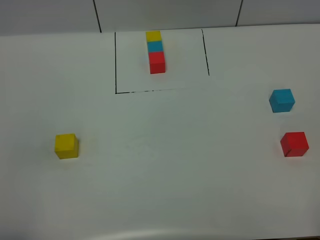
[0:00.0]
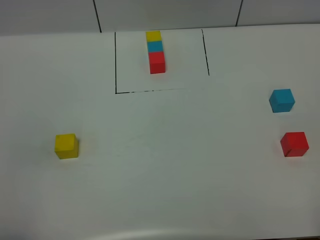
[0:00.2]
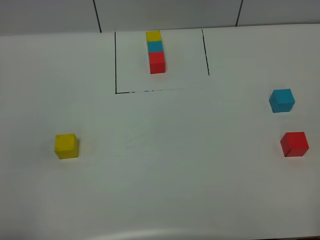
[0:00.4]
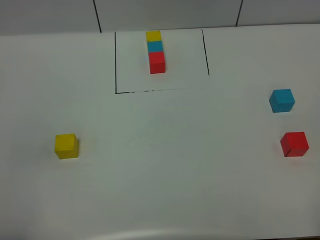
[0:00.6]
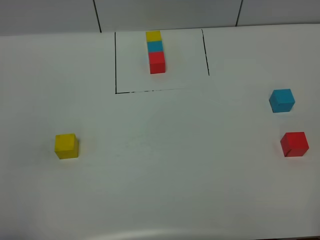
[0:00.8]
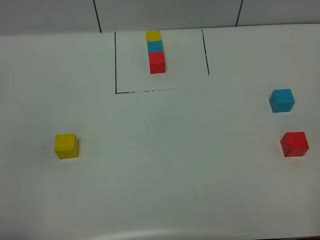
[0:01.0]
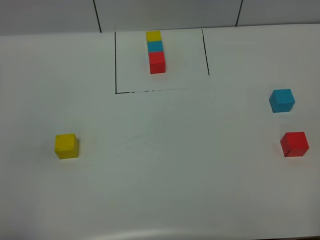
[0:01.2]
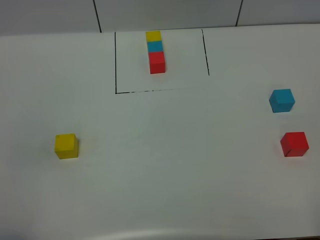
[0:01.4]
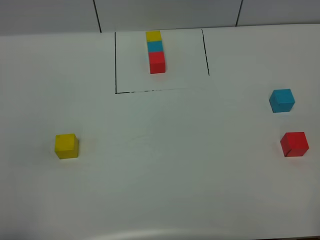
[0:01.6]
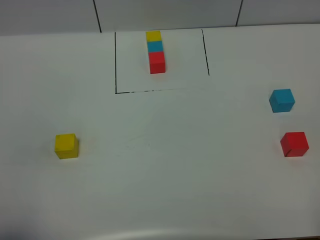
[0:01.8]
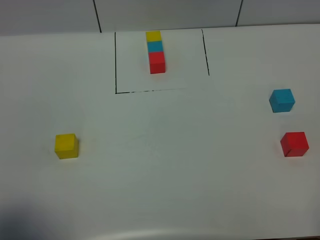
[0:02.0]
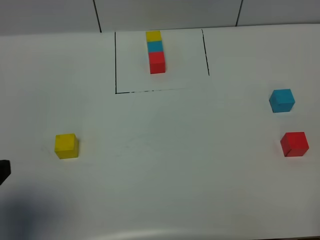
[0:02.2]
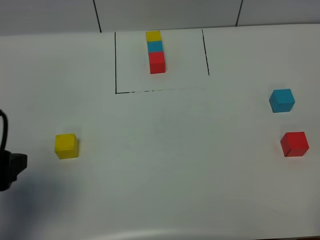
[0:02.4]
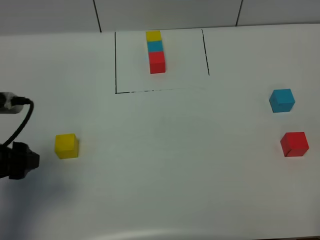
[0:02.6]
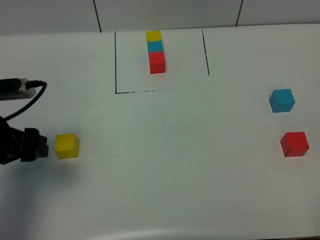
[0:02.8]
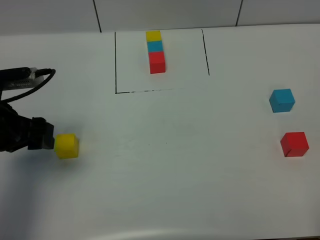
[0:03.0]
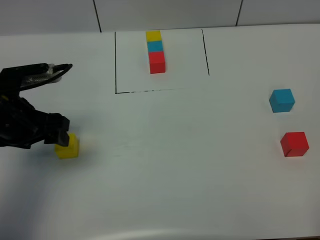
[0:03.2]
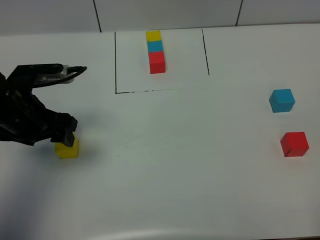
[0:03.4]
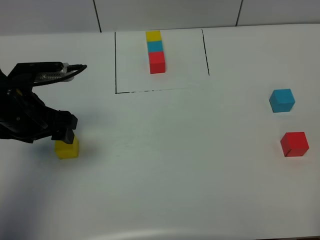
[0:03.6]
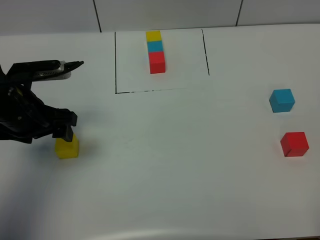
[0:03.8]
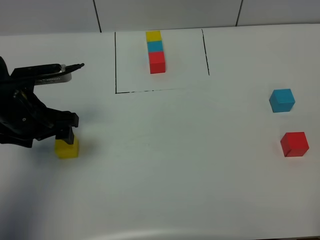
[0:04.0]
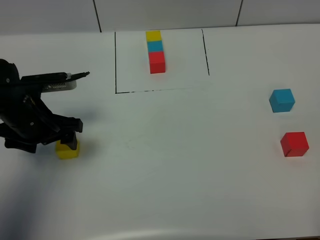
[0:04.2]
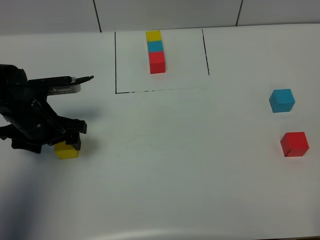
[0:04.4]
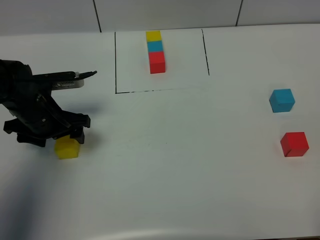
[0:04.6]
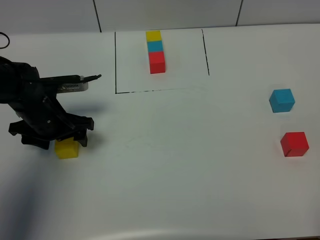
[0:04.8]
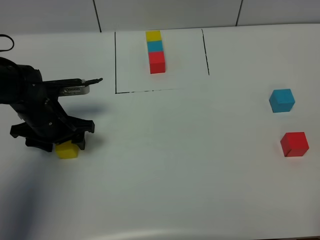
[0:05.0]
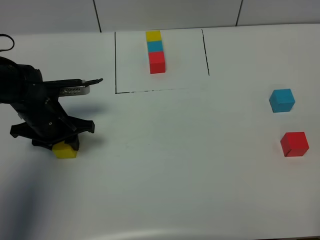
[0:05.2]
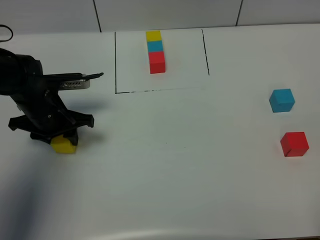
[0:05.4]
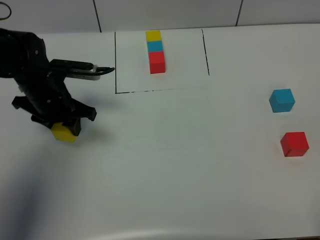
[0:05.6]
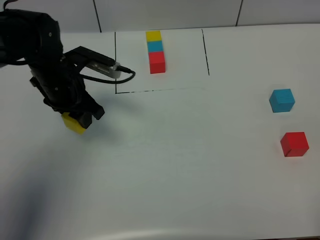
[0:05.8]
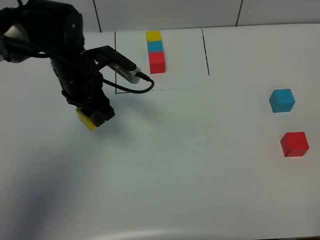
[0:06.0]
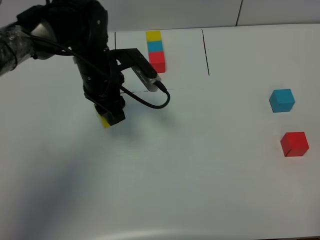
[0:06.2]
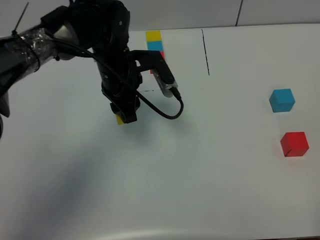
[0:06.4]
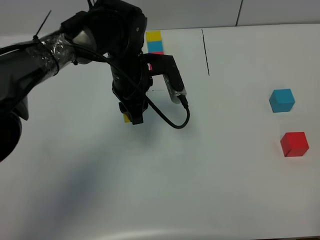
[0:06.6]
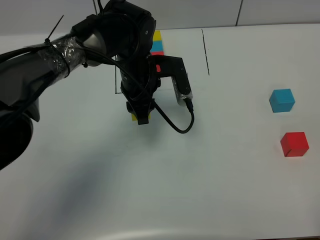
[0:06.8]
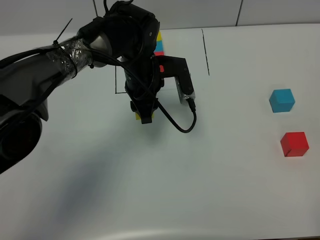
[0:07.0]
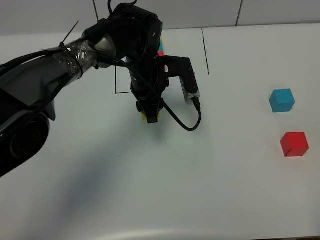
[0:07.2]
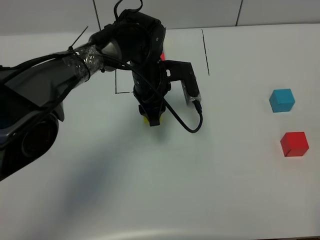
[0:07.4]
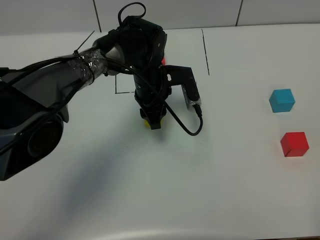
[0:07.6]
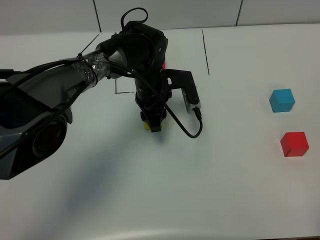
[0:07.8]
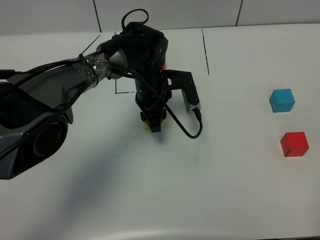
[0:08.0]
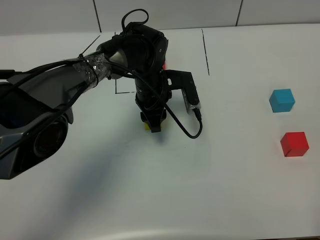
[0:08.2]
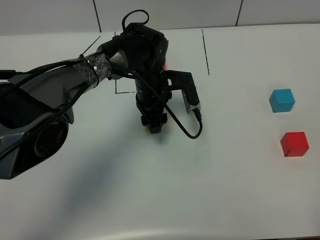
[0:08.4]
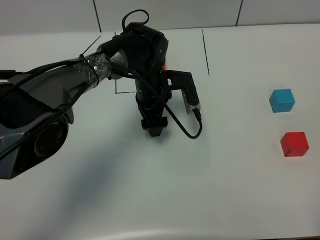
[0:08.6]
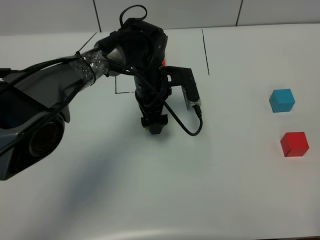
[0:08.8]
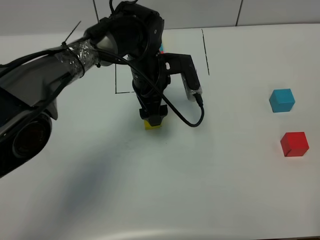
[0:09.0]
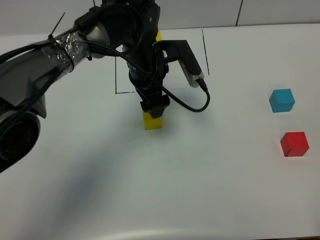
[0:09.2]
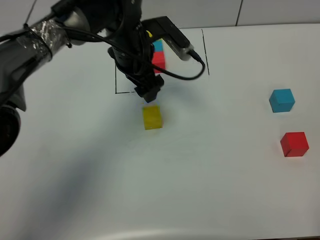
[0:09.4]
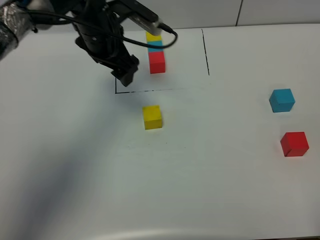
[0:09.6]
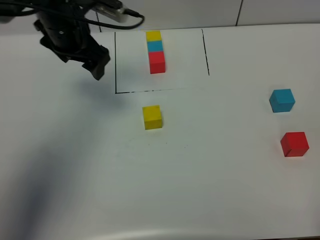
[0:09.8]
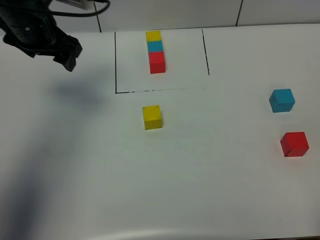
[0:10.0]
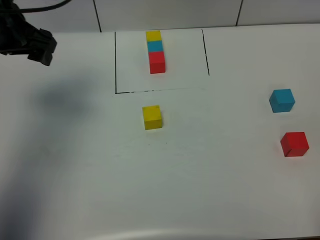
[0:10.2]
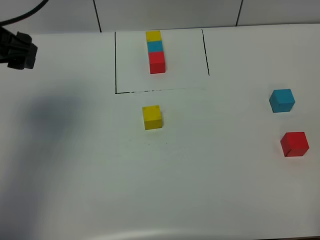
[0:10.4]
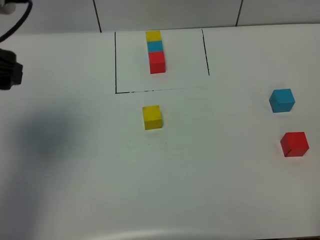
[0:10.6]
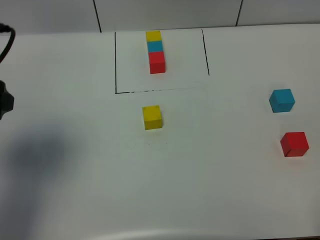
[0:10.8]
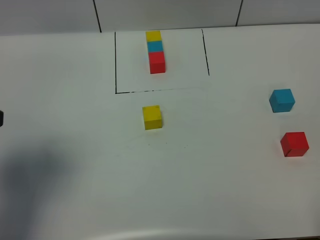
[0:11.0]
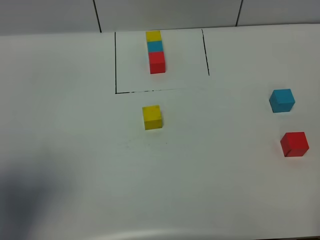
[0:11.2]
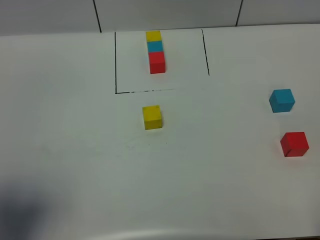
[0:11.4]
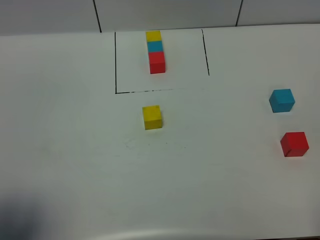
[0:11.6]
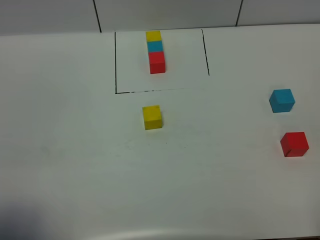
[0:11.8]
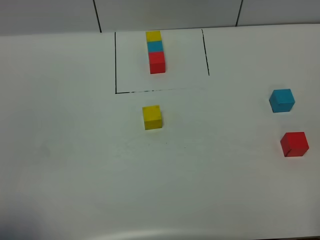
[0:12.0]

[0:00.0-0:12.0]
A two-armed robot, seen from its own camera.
Task of the whole recording: According to the building block template in front, assemble the scattered blocks together.
Step, 0:02.2 to 0:09.0: Put the yellow cube in the center of the table.
0:00.0 to 0:01.6: Both grippers stay about where they are.
0:01.6 to 0:03.0: The left gripper heads forward, covering roughly 25 cm.
0:03.0 to 0:04.4: The left gripper travels downward and forward by roughly 10 cm.
0:04.4 to 0:06.0: The left gripper heads to the right and forward, covering approximately 10 cm, and closes.
0:06.0 to 0:07.6: The left gripper heads to the right and downward, covering about 15 cm.
0:07.6 to 0:09.0: The left gripper opens its fingers.
0:09.0 to 0:10.4: The left gripper shifts about 30 cm to the left and upward.
0:10.4 to 0:12.0: The left gripper moves backward, approximately 30 cm.

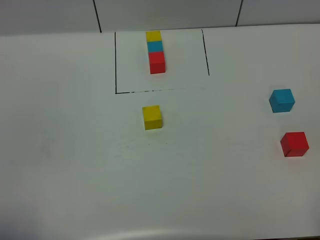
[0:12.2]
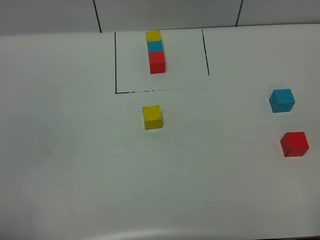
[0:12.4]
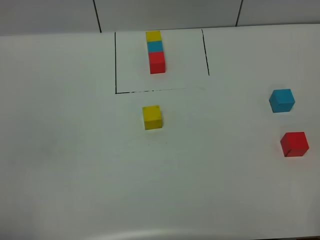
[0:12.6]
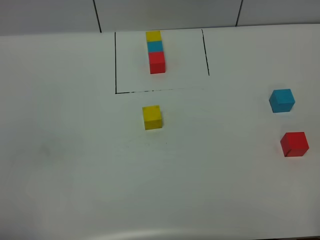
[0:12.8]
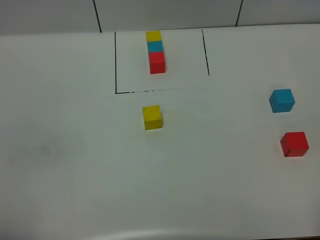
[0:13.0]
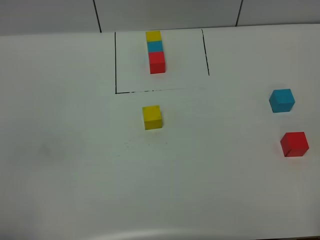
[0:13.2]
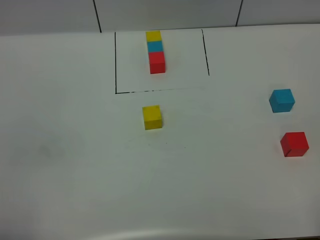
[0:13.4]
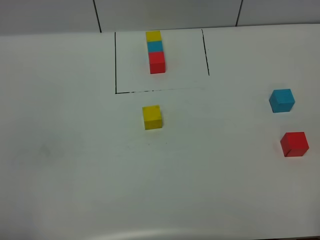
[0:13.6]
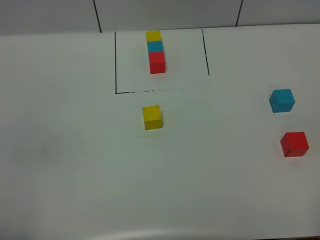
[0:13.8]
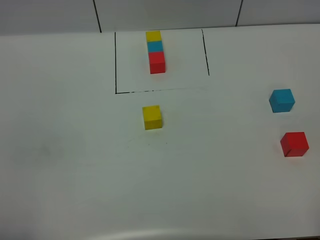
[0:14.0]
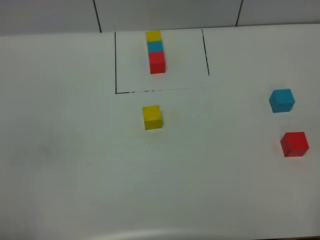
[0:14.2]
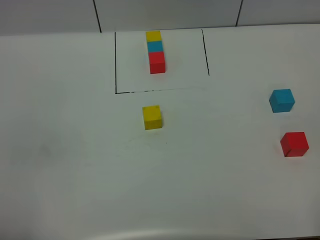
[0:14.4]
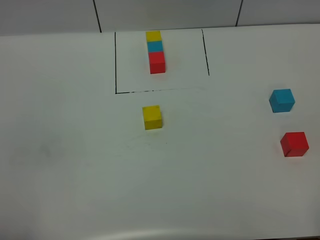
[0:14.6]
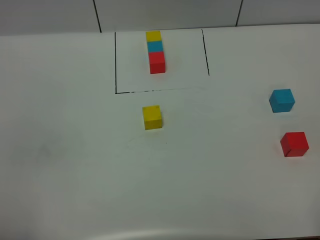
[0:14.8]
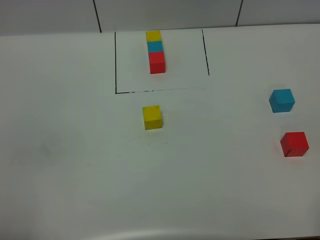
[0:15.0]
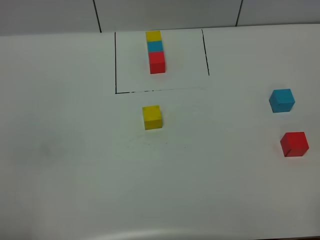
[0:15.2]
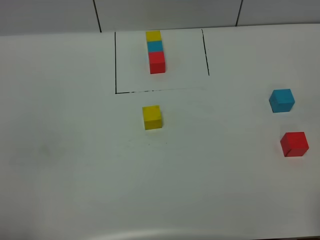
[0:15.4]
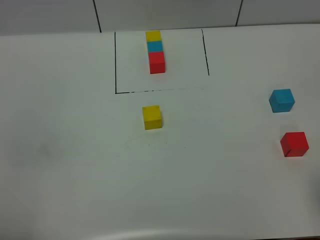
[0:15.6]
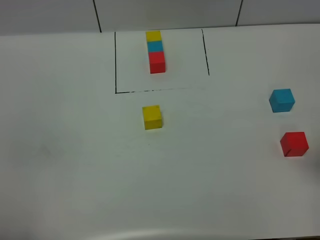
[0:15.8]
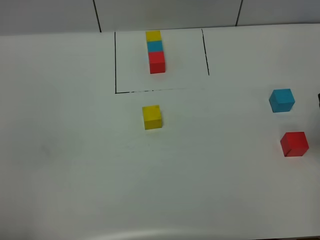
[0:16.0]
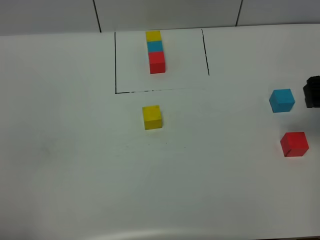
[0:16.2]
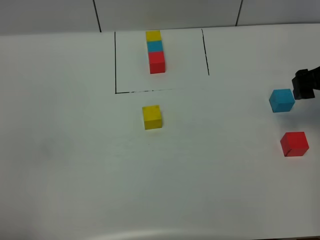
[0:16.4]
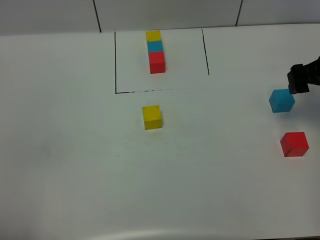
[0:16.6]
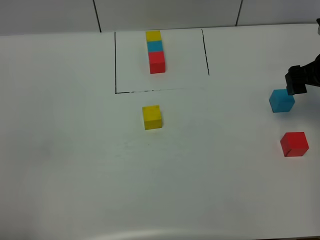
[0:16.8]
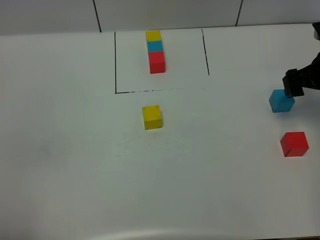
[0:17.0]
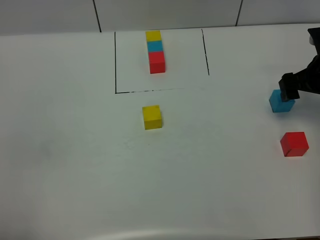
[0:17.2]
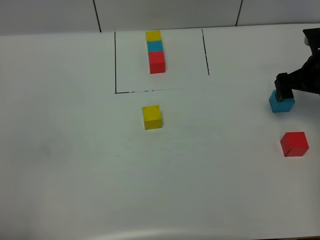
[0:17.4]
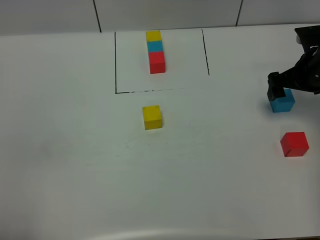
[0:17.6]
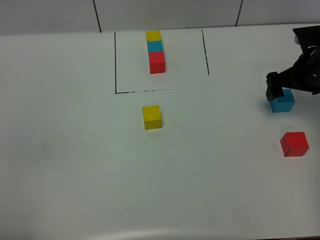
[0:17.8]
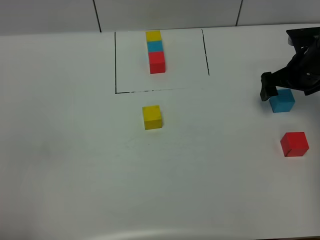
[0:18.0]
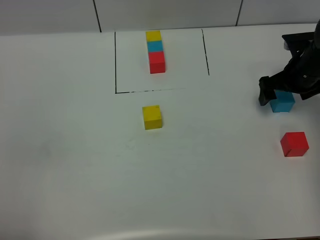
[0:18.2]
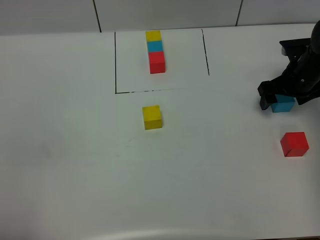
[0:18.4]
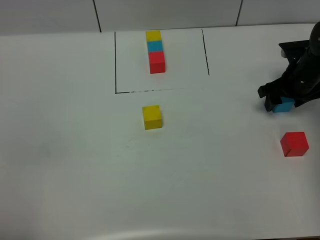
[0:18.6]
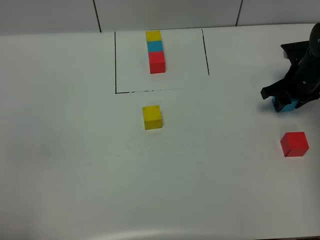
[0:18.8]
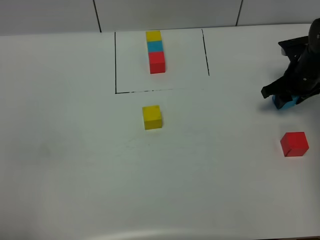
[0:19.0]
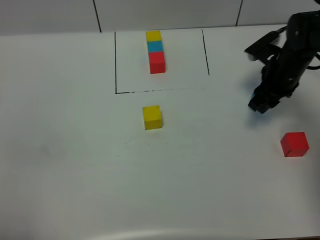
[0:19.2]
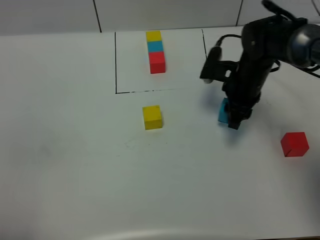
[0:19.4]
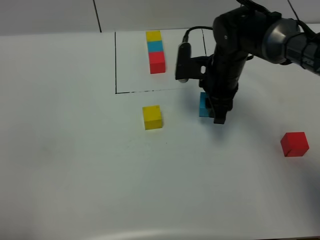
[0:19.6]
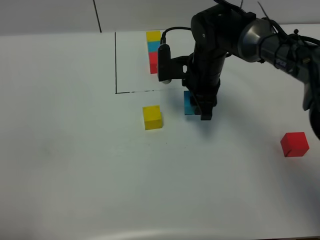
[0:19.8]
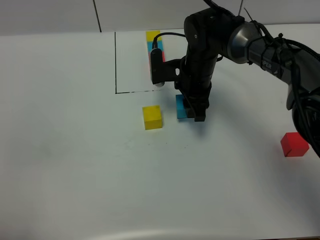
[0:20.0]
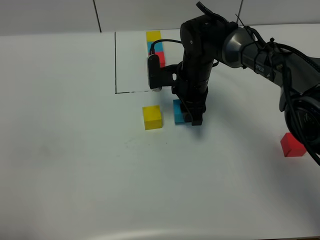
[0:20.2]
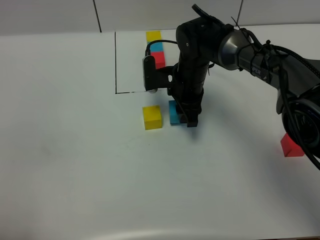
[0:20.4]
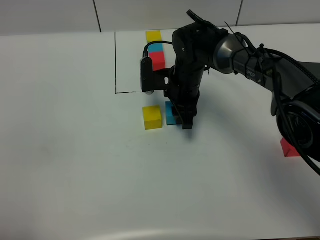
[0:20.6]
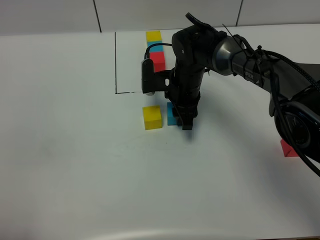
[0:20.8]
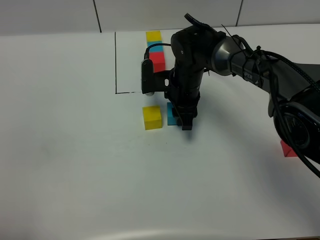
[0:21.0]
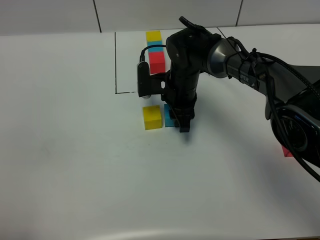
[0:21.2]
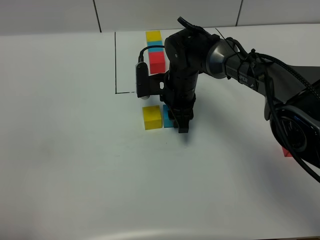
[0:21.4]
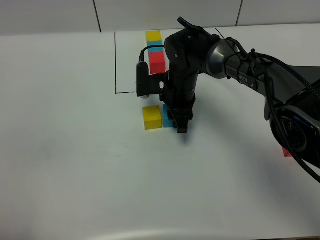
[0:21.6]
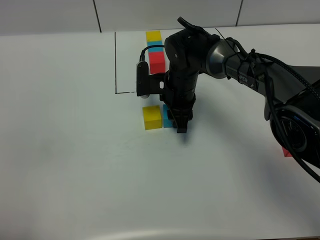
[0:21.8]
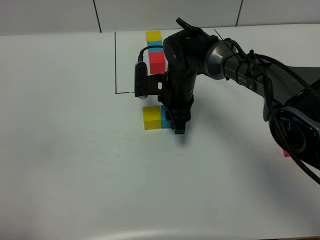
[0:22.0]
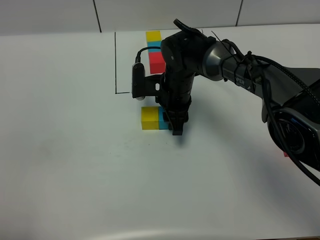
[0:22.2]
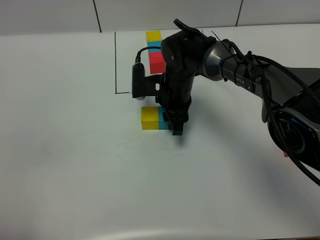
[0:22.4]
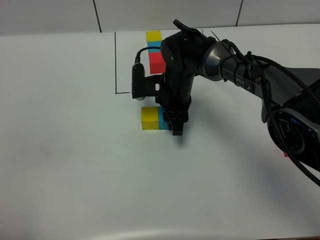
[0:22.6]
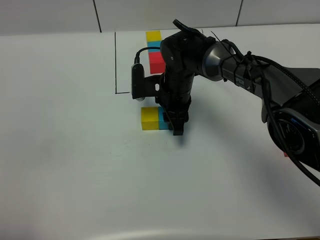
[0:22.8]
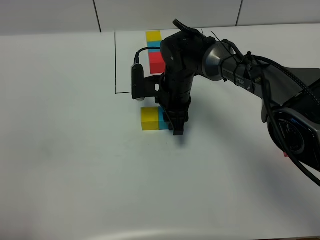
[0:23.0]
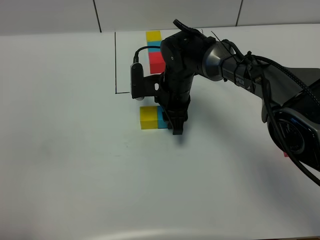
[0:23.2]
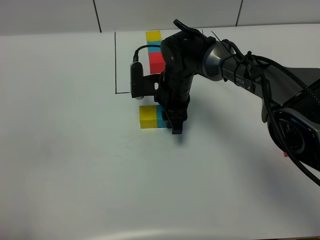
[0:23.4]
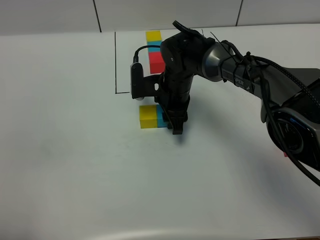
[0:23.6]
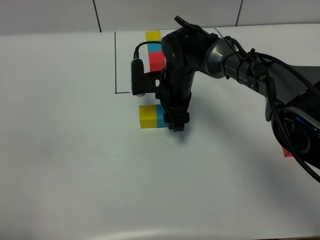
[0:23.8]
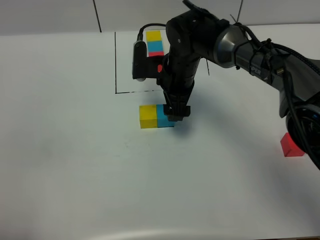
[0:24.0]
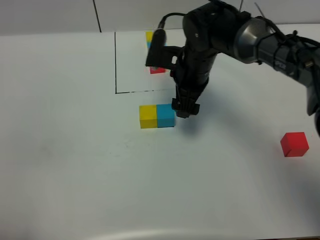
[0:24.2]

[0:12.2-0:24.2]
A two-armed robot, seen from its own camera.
Task of the whole recording: According to the building block template in front, assemble the scattered blocks together.
Step, 0:12.2 to 0:23.8: Put the blue cube on the right of the yellow cube.
0:13.8 to 0:15.2: The two grippers keep their place.
0:15.2 to 0:16.6: The right gripper is displaced forward by roughly 35 cm.
0:16.6 to 0:18.2: The right gripper goes approximately 10 cm downward and forward.
0:18.2 to 0:19.8: The right gripper is displaced to the left by some 20 cm, and closes up.
0:19.8 to 0:21.2: The right gripper moves some 5 cm.
0:21.2 to 0:22.6: Both grippers stay about where they are.
0:22.6 to 0:24.2: The right gripper is displaced upward by approximately 5 cm, and opens.
